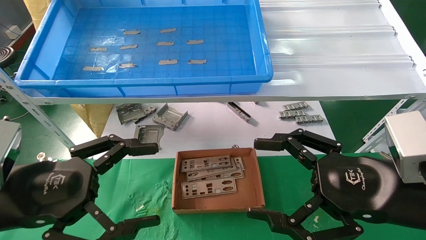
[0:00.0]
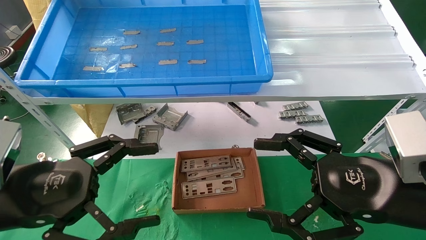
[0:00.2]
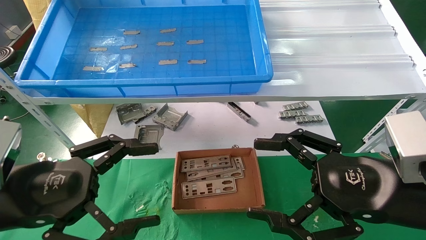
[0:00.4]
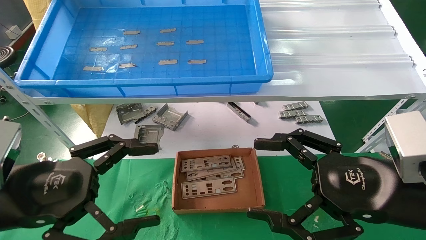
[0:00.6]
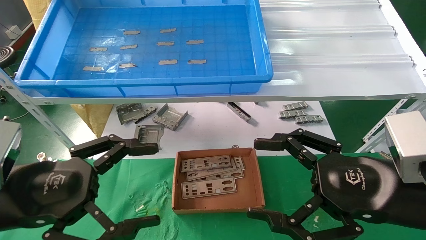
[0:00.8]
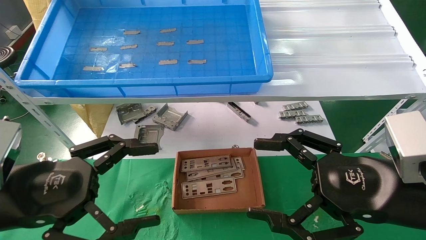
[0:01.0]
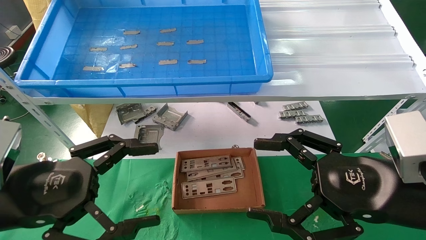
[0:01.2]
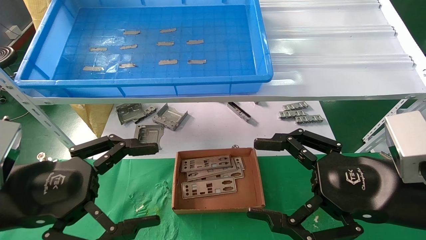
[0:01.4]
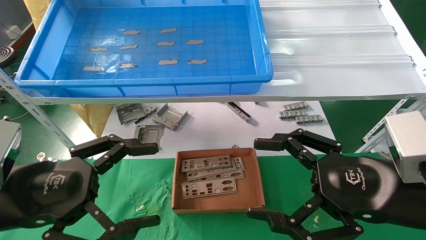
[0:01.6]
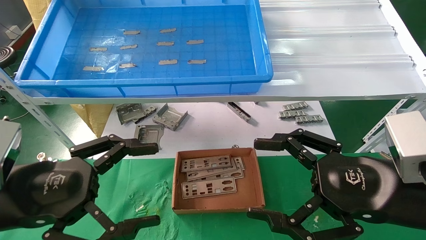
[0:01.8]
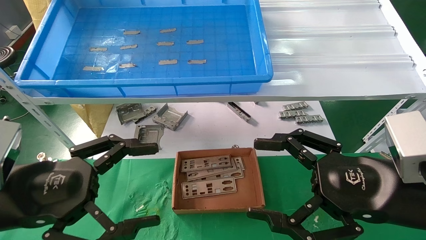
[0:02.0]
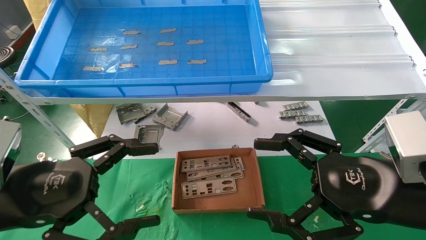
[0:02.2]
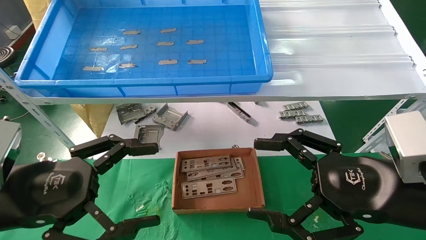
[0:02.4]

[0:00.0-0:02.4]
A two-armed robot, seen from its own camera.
Task of the whole recording: pick up the parts on the tray and put them in the cardboard box.
0:00.0 to 0:02.4: Both grippers stay about where they are.
